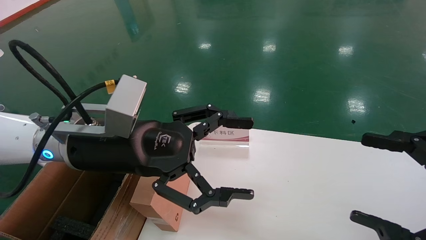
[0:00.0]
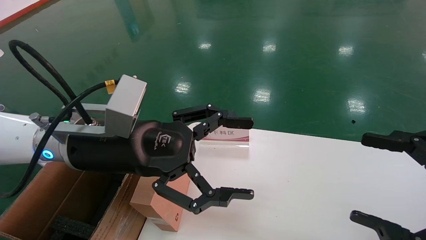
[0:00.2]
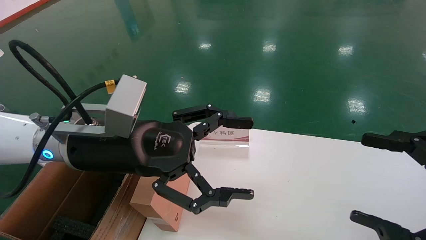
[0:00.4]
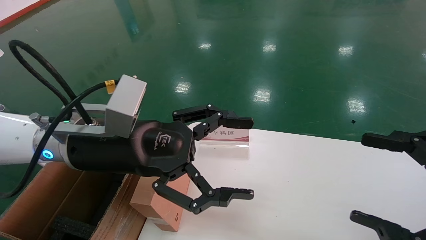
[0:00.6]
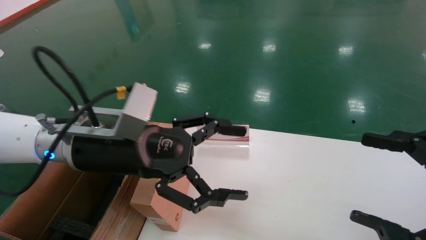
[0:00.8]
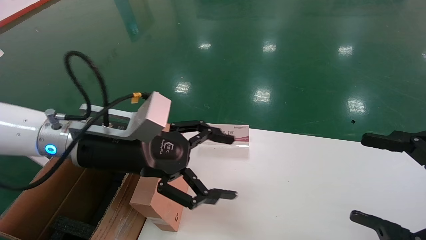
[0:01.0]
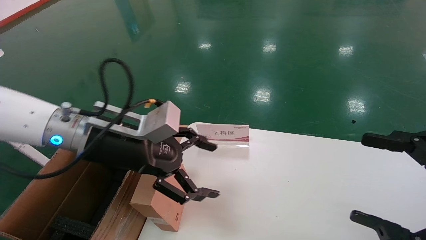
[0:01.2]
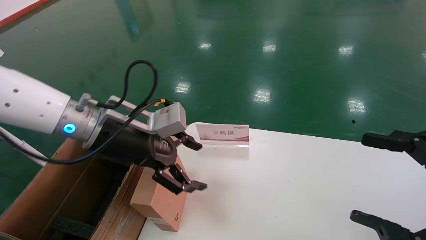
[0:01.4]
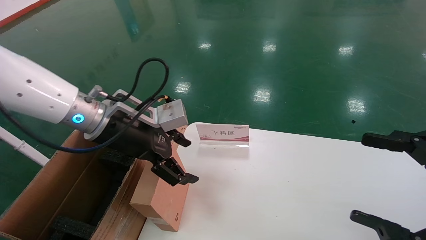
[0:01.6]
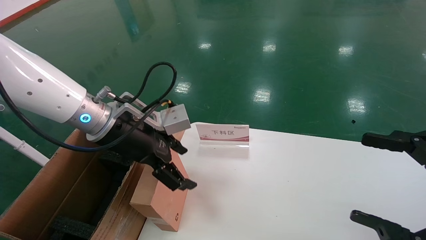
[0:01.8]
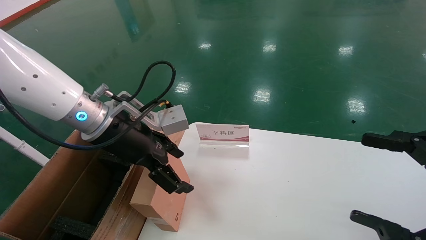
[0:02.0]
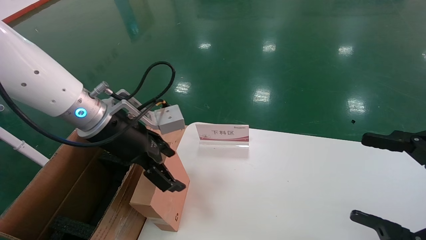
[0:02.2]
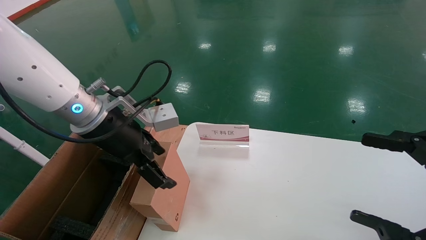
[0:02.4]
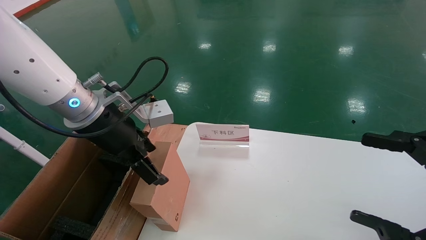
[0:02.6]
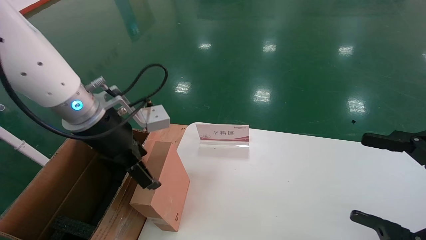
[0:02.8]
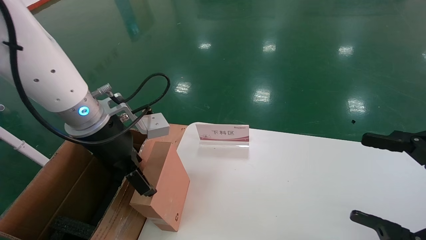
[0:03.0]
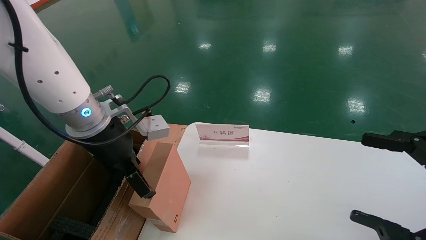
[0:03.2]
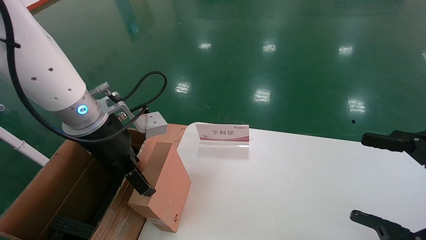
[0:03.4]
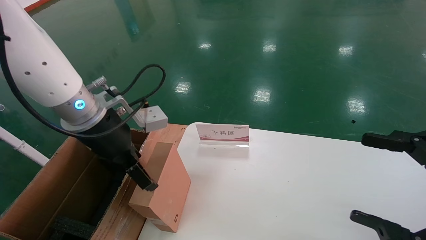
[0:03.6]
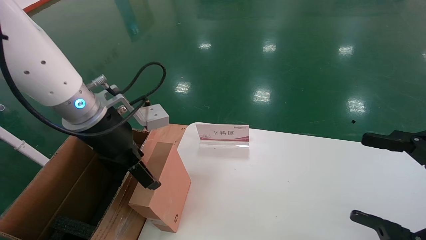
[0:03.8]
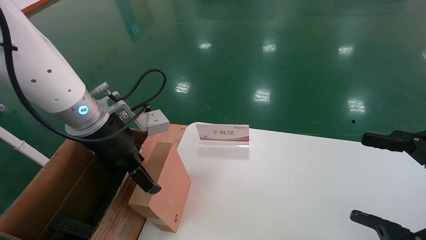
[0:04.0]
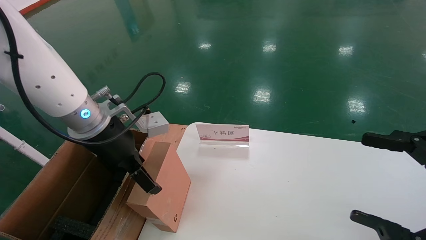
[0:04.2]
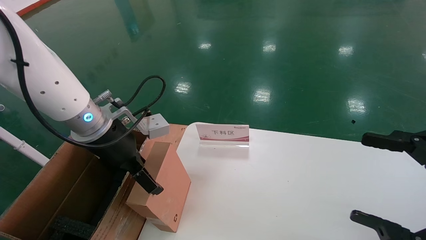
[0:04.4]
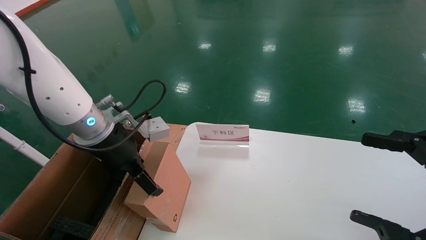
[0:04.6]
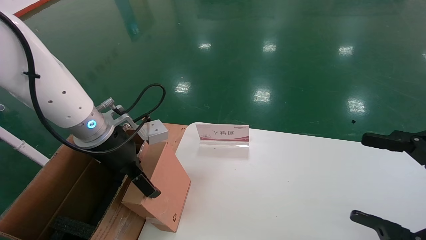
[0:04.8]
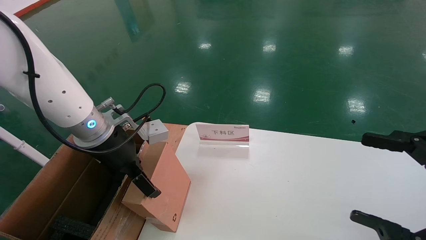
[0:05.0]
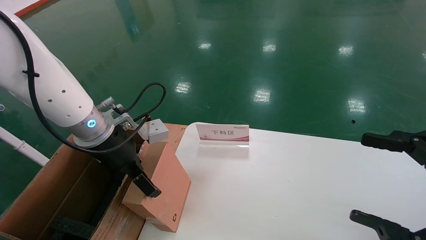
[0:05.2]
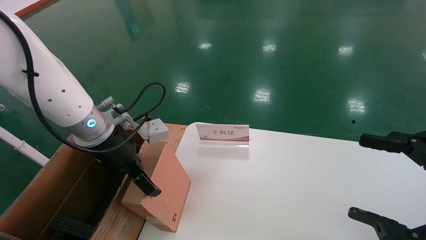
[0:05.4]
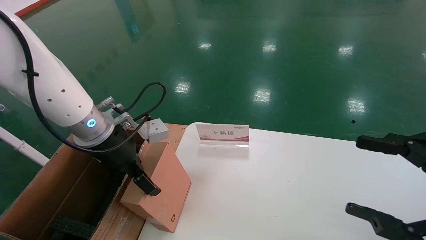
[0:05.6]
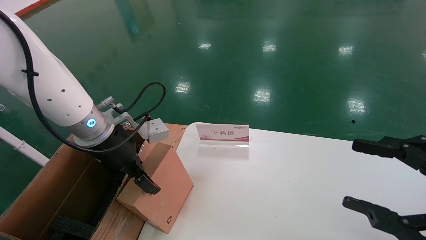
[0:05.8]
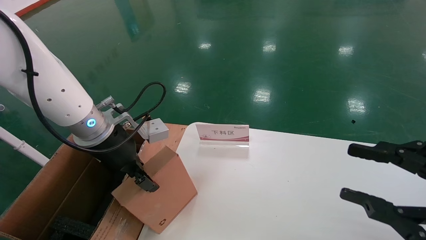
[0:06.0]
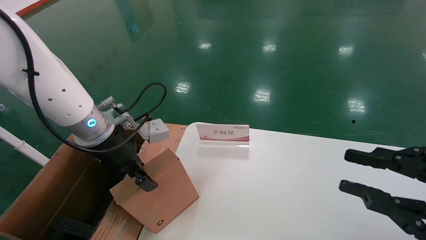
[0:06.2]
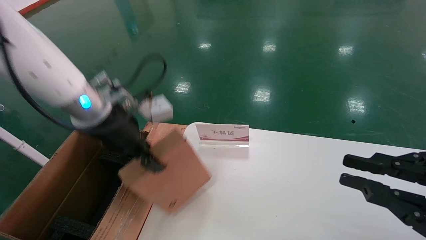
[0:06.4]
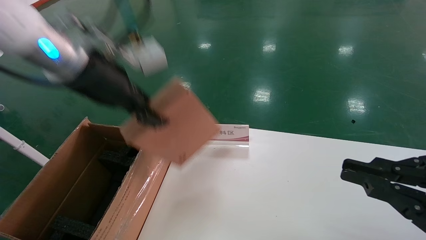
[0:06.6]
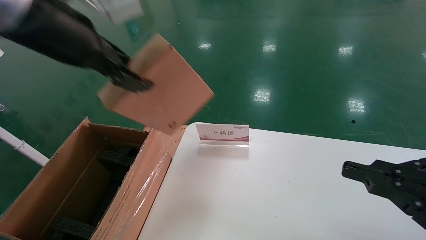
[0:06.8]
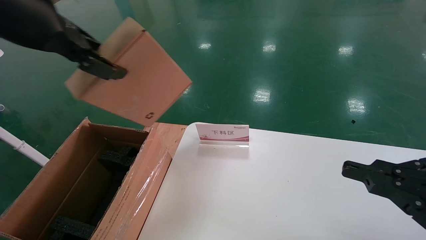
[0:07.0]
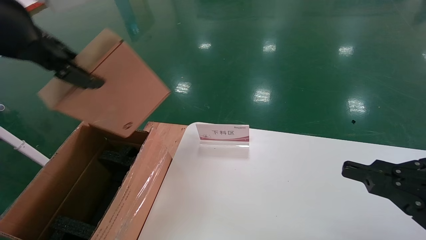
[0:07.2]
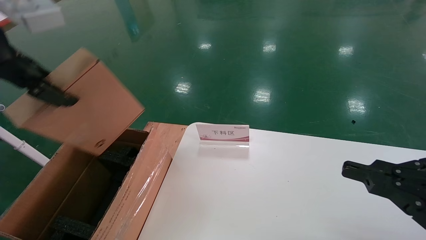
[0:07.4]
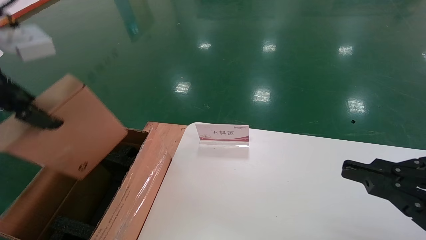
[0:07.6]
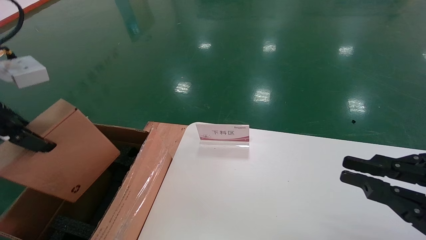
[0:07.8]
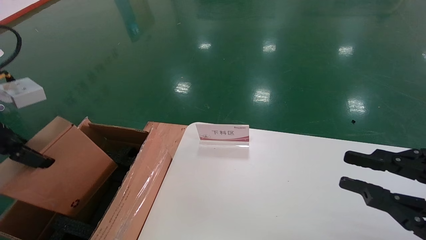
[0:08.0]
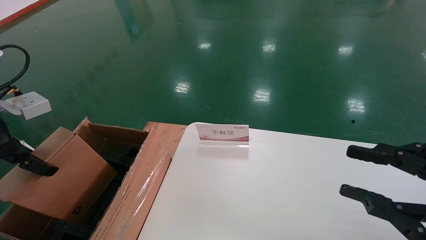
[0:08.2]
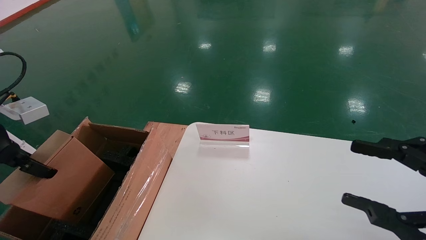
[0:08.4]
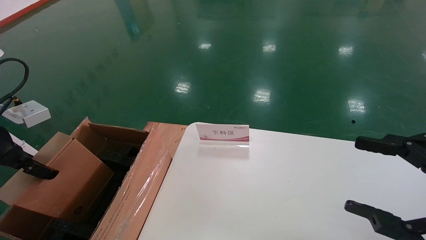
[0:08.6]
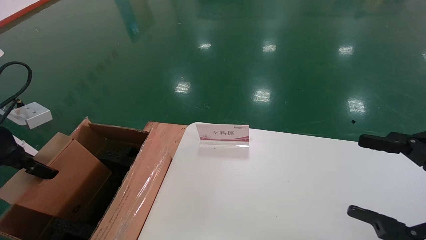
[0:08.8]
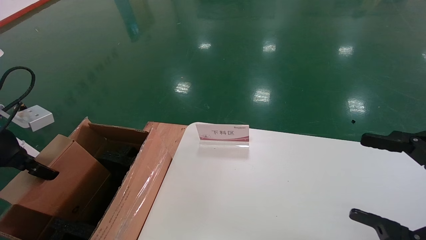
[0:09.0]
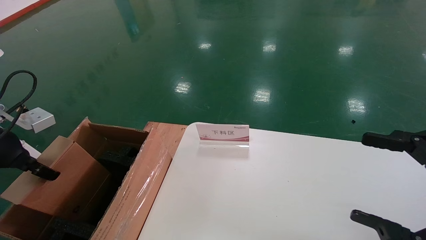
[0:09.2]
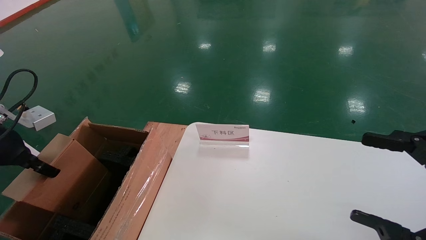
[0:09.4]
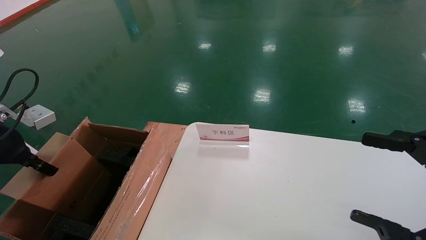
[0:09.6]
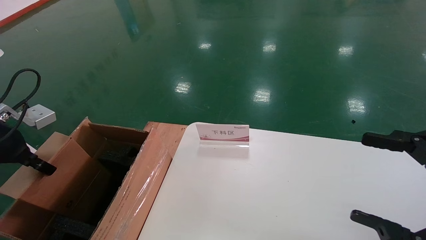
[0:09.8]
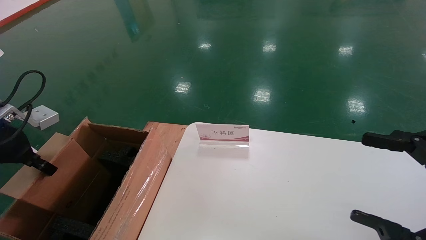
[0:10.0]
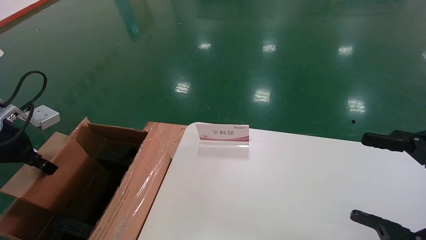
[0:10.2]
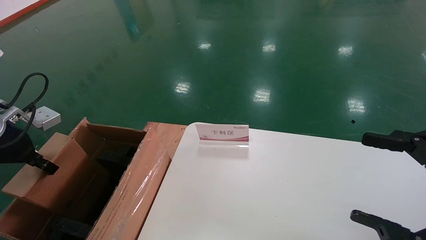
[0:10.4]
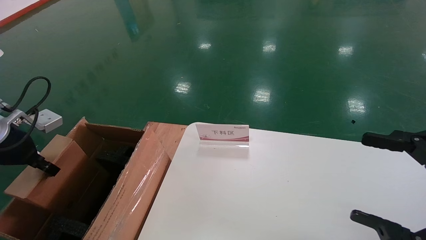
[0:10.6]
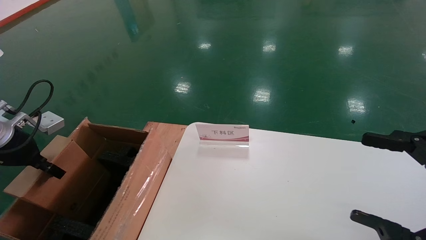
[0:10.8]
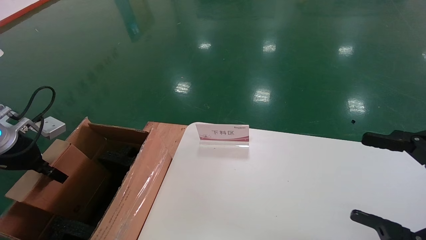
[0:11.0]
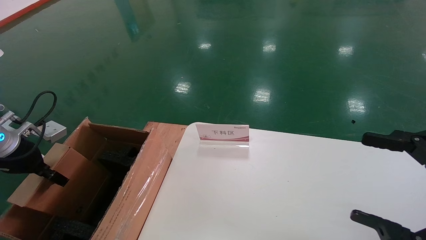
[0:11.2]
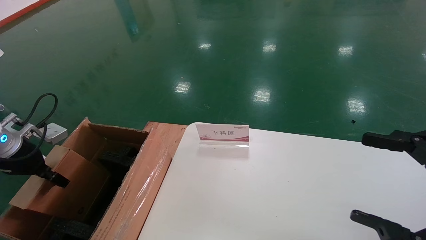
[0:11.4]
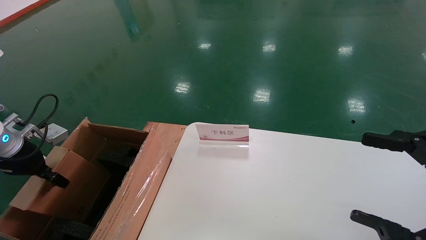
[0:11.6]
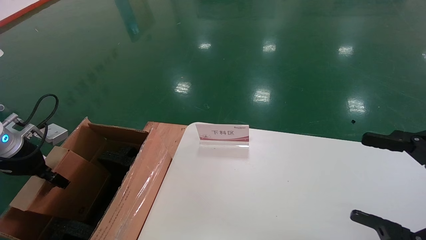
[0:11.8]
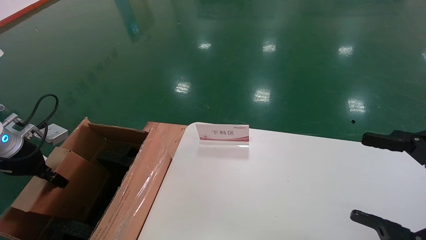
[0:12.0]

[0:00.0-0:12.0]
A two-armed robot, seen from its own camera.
Task of the whole recording: pick up the small cardboard box and load it into the large cardboard box.
Step, 0:00.6 to 0:06.0: Pick up the mouse and power cord box.
0:00.0 to 0:01.6: The left gripper shifts about 5 cm forward.
0:03.0 to 0:04.4: There are only small adjustments of the grippers.
0:04.4 to 0:06.0: The left gripper closes. Meanwhile the right gripper closes up.
0:06.0 to 0:07.6: The right gripper closes its fingers, while the left gripper goes approximately 25 cm upward, backward and to the left, and closes its fingers.
0:07.6 to 0:09.0: The right gripper opens up. The left gripper travels downward and to the left by approximately 15 cm.
0:09.0 to 0:10.4: There are only small adjustments of the grippers.
0:10.4 to 0:12.0: The left gripper shifts roughly 5 cm downward.

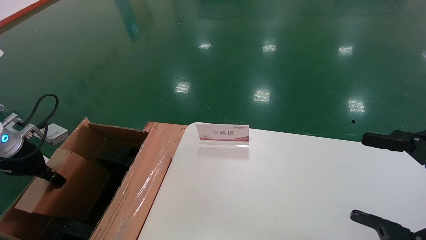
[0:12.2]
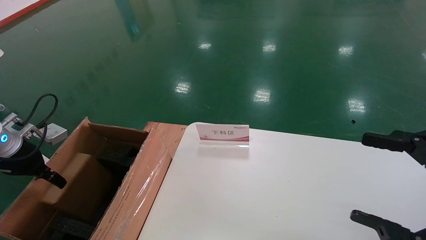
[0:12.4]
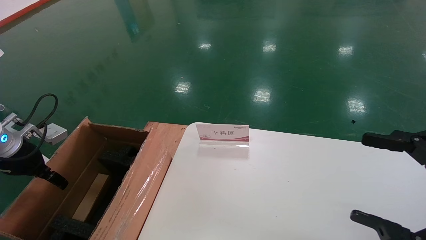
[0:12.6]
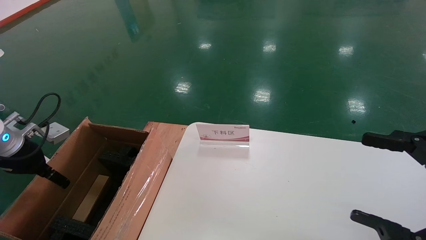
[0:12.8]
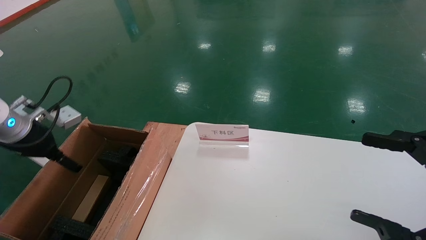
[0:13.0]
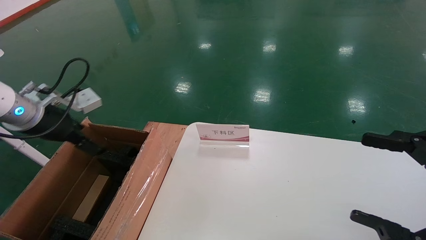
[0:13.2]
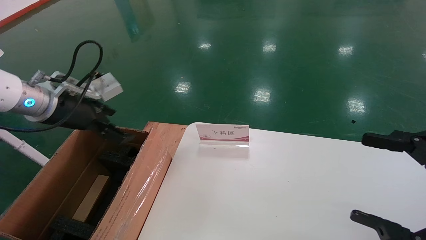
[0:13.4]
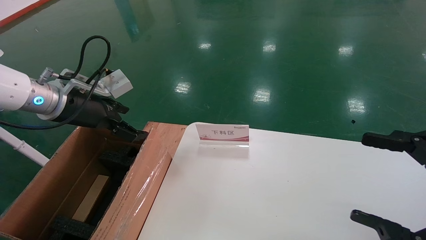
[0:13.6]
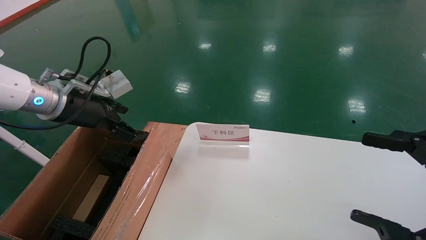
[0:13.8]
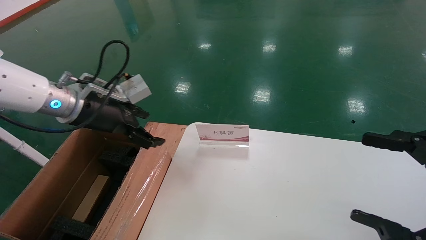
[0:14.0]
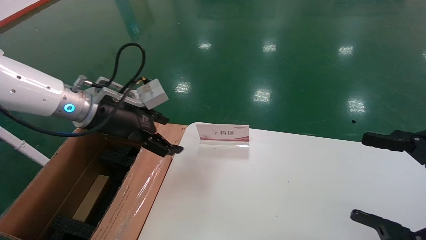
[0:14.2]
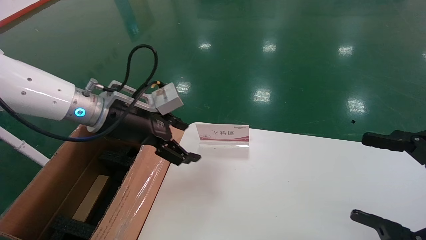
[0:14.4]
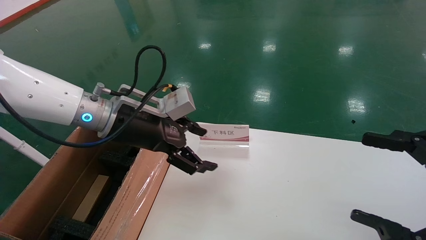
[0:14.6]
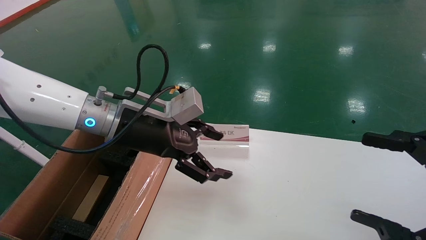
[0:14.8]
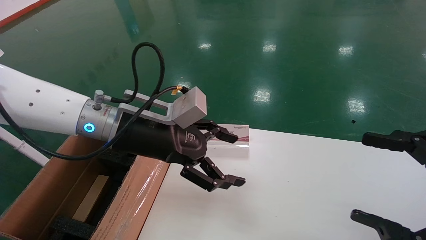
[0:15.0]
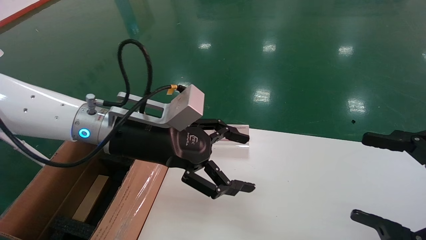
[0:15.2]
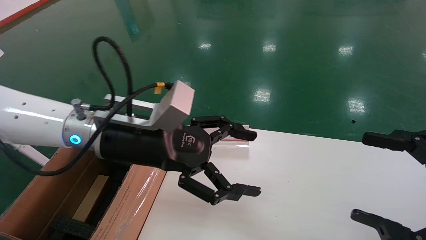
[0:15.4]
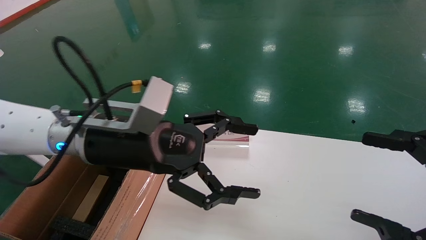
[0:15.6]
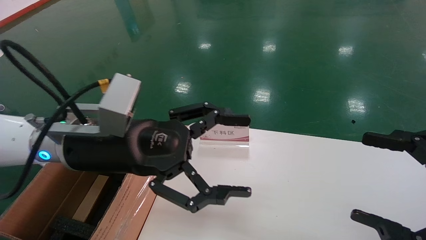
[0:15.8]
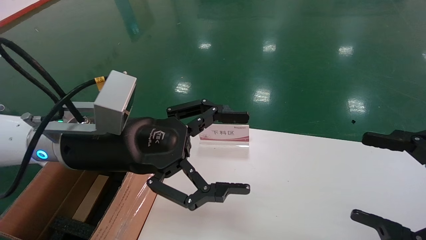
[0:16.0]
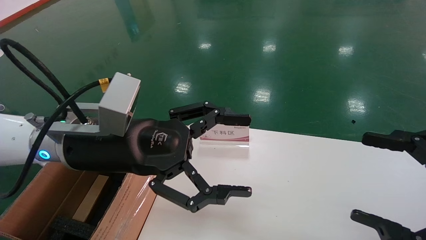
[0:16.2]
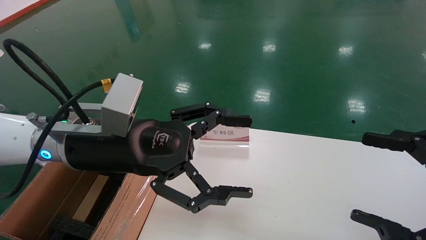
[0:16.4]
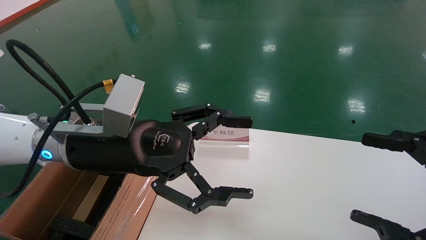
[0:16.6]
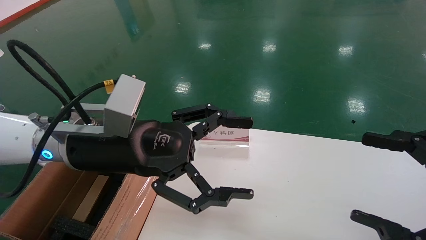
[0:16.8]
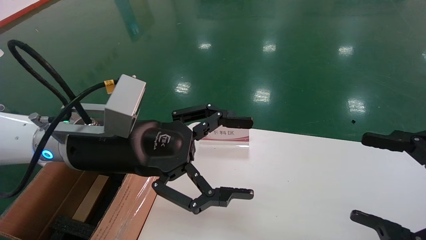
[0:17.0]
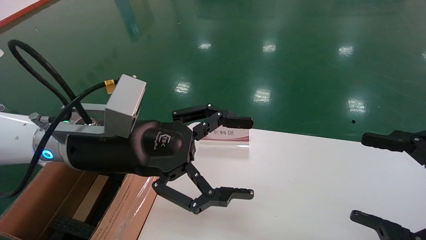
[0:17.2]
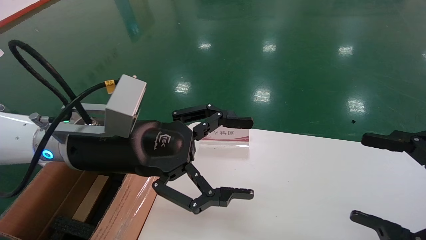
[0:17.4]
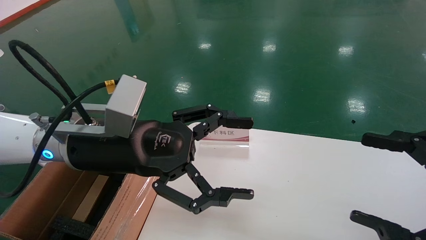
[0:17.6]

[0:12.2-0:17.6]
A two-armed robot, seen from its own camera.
Task of the whole recording: pick up the small cardboard box and load it into the large cardboard box.
0:12.2 to 0:13.6: The left gripper travels to the right and upward by about 15 cm, and opens its fingers.
0:13.6 to 0:15.0: The left gripper travels to the right by approximately 15 cm.
0:15.0 to 0:16.2: The left gripper goes approximately 5 cm backward.
0:16.2 to 0:17.6: The two grippers keep their place.
